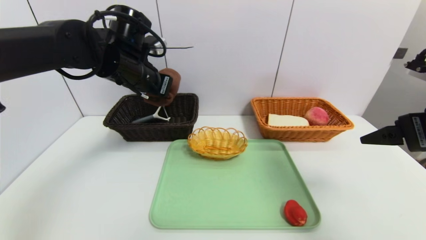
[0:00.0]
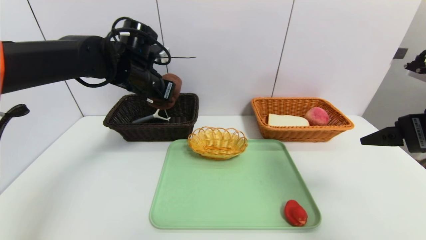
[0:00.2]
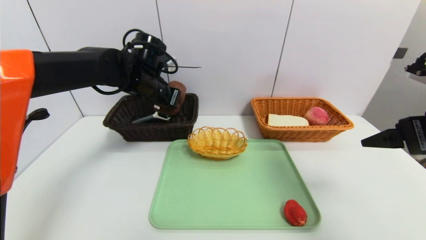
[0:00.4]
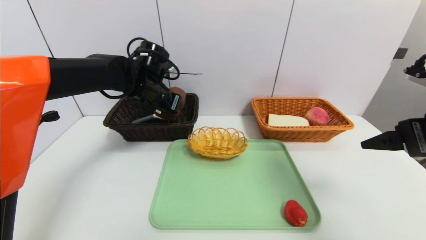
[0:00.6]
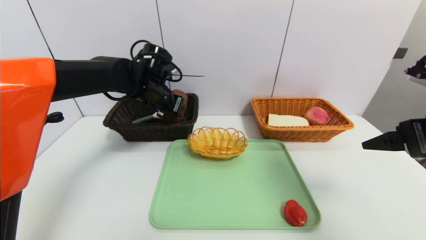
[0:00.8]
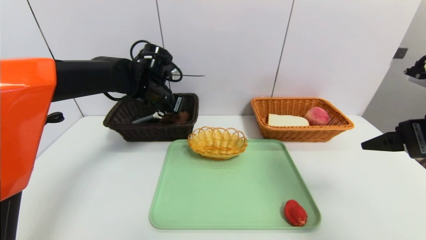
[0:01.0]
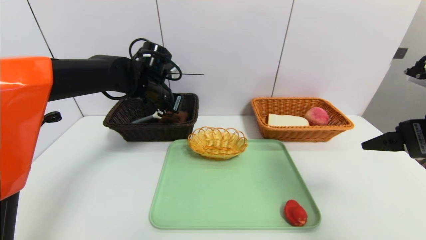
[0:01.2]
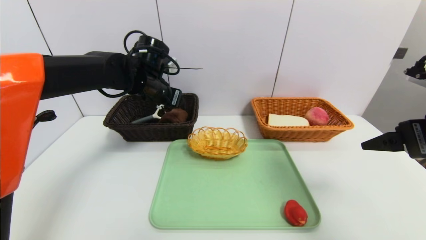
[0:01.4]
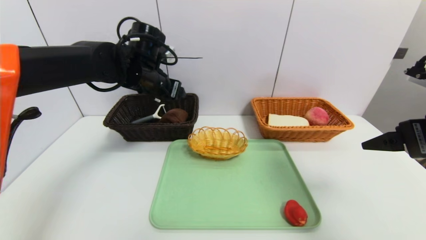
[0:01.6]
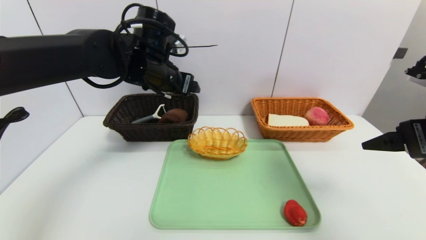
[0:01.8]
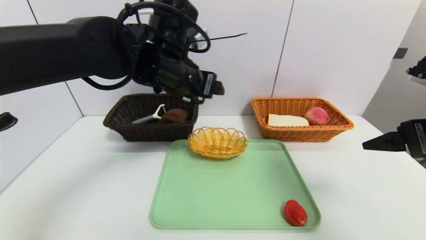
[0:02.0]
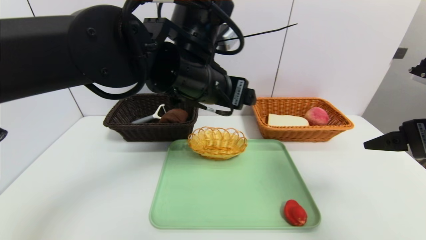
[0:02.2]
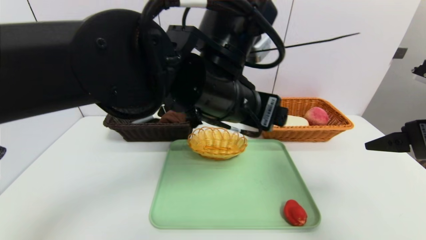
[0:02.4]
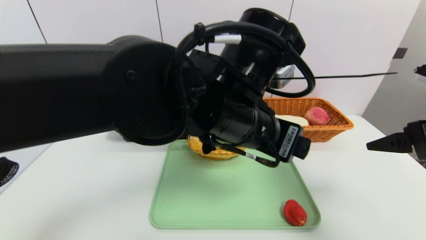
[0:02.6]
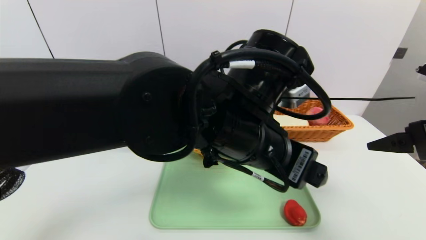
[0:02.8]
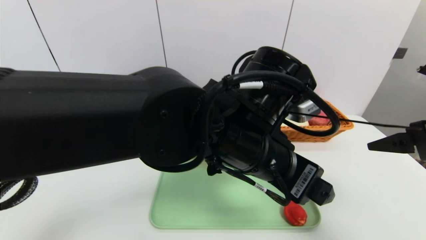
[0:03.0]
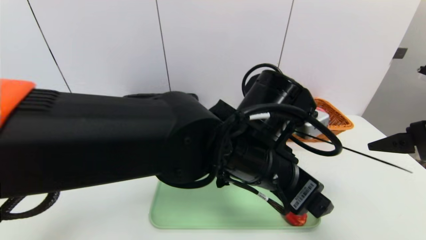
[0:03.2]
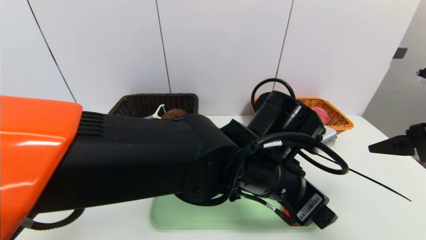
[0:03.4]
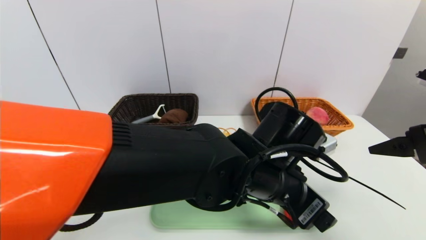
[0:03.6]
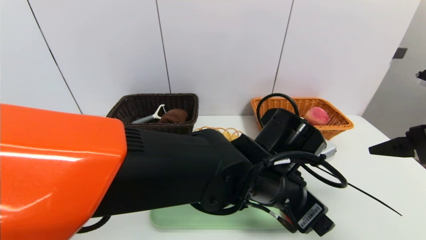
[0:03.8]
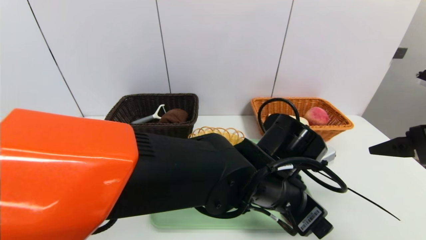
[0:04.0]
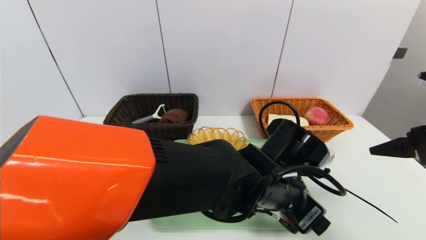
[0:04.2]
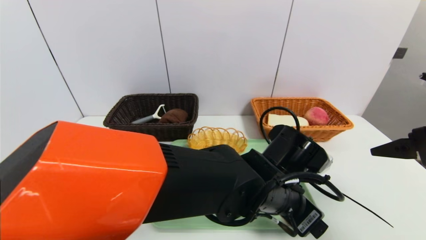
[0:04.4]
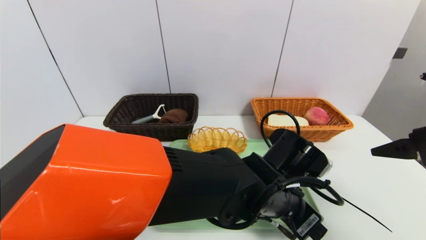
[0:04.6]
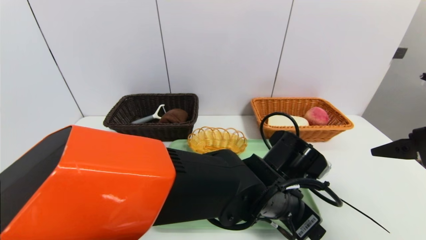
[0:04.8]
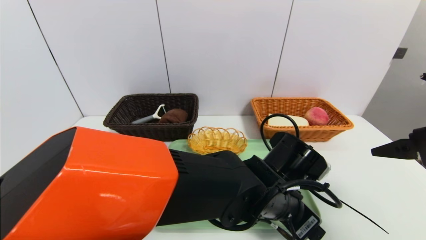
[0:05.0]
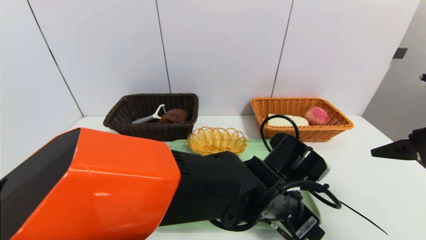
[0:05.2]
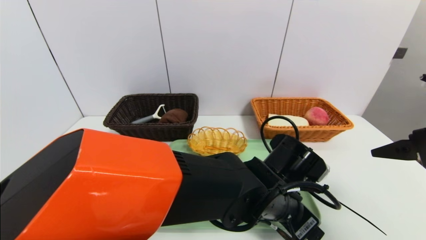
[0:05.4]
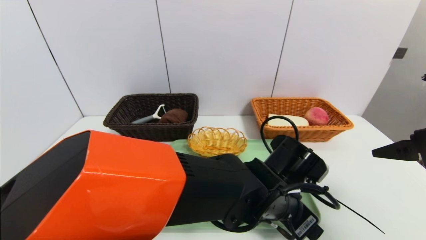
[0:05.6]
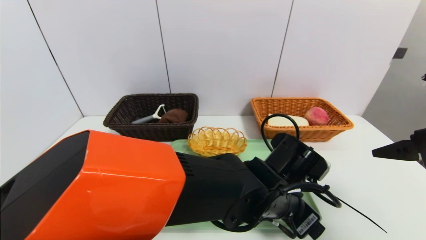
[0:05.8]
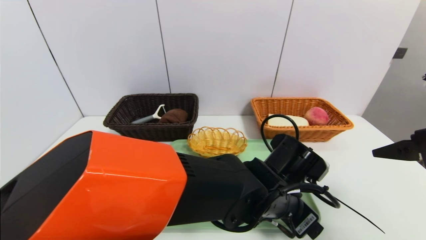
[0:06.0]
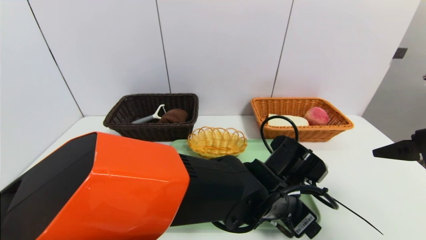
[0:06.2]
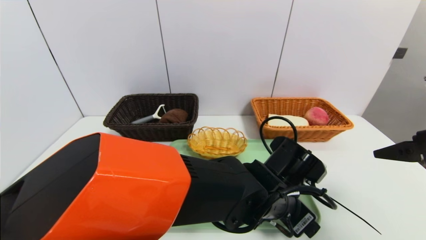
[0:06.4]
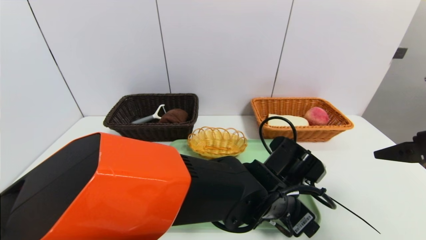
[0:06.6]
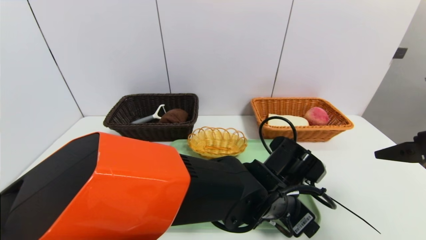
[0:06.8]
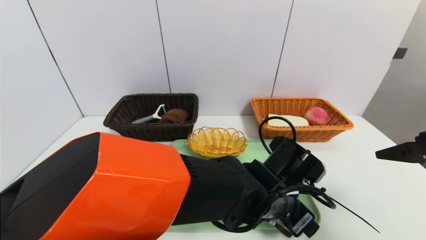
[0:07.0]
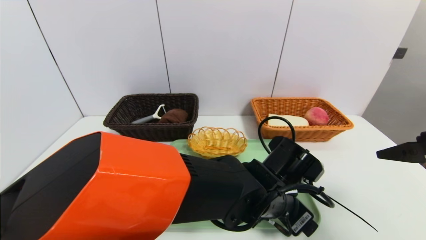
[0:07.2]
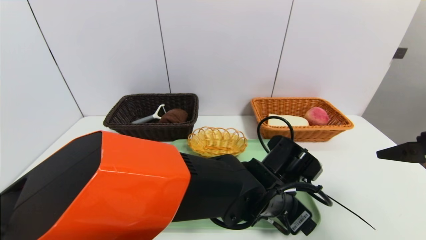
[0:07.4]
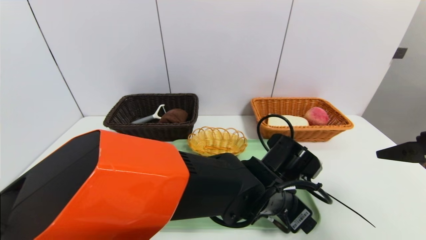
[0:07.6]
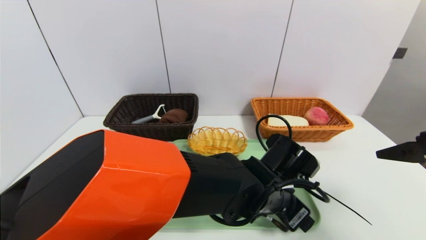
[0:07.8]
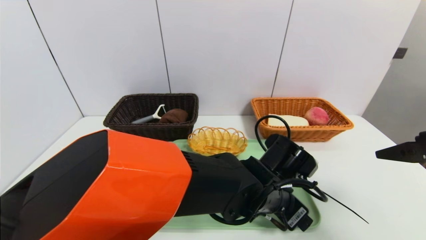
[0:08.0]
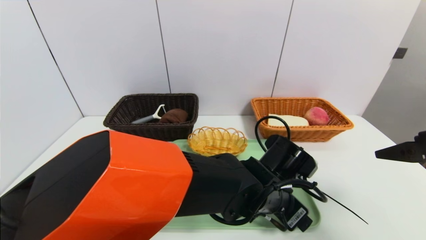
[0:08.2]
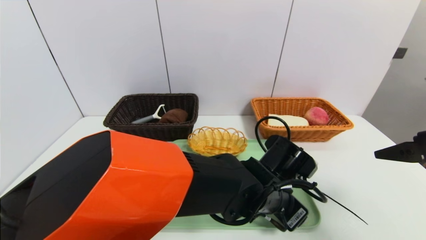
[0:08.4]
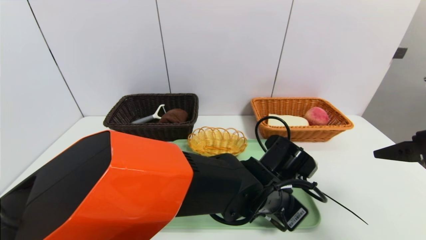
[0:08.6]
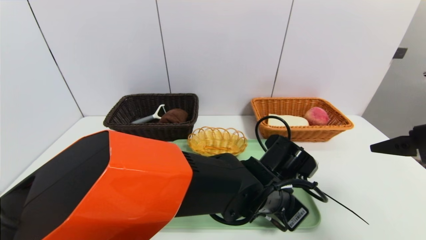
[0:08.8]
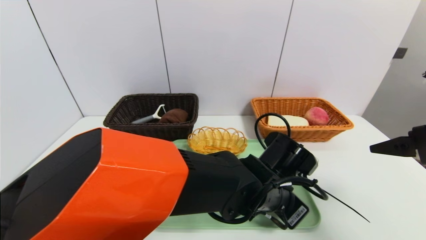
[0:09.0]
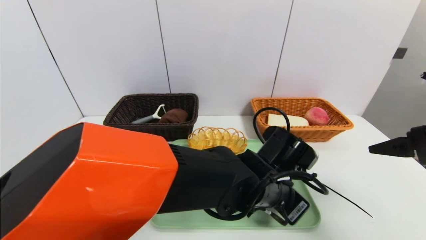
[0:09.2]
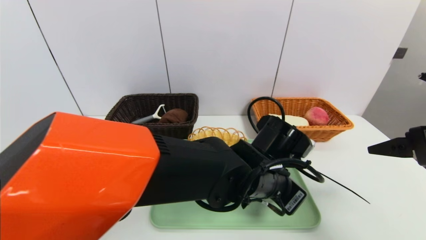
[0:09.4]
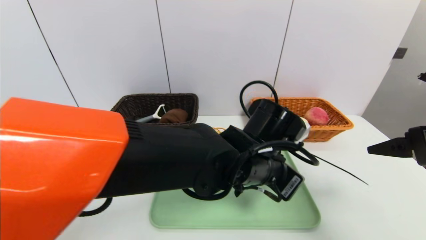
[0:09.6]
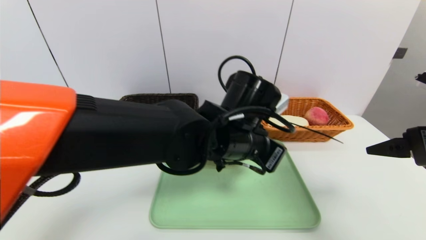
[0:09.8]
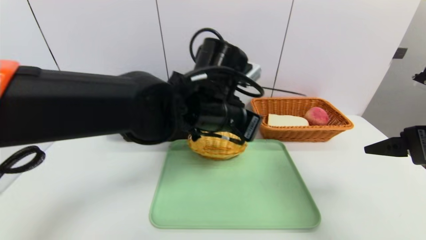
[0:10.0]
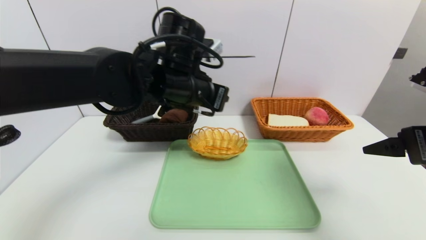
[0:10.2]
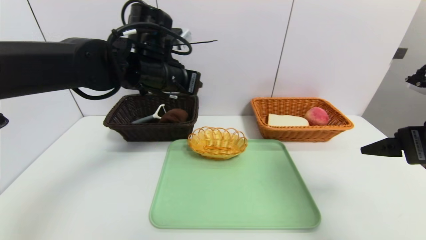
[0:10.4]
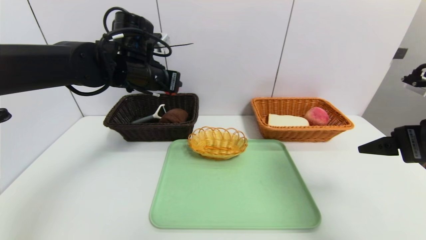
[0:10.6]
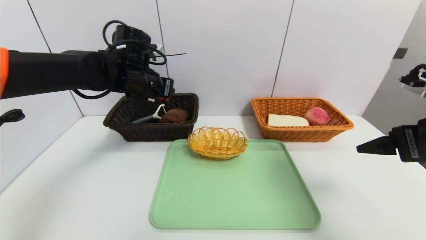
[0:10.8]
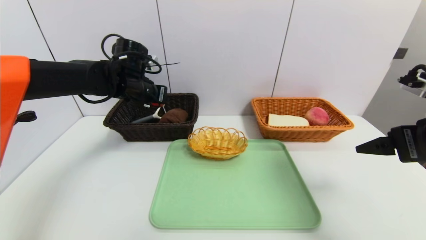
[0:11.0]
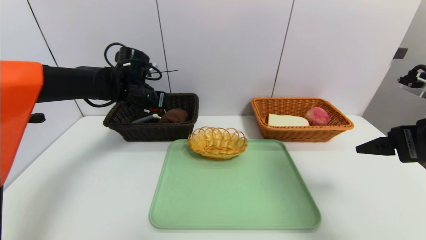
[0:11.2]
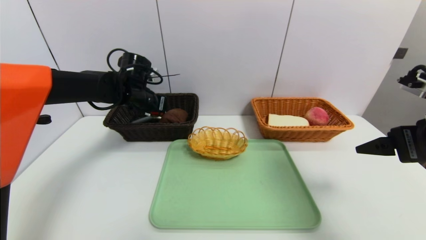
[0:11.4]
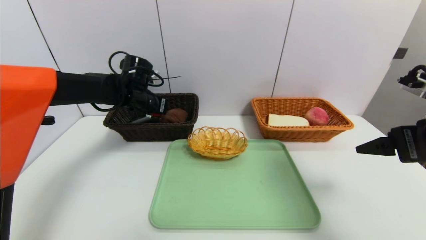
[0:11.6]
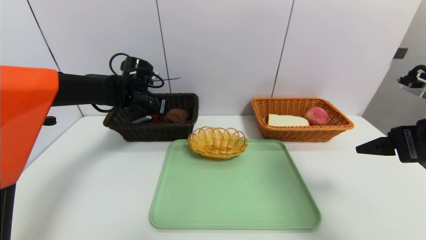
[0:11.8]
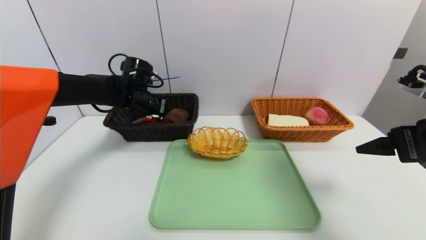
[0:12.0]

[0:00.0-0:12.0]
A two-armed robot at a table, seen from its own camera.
Task of the whole recording: place the food in the right basket with the right gripper, and place the non food items in the left basket with the left gripper.
0:00.0 to 0:01.6: The left gripper opens its fingers.
0:01.6 to 0:03.0: The left gripper heads backward and to the right, covering approximately 25 cm.
0:03.0 to 0:04.4: The left gripper goes about 10 cm downward and to the right.
0:04.4 to 0:06.0: The grippers move only a little.
0:06.0 to 0:07.6: Neither gripper changes place.
0:07.6 to 0:09.0: The left gripper closes.
0:09.0 to 0:10.4: The left gripper shifts some 30 cm to the left, upward and forward.
0:10.4 to 0:12.0: The left gripper moves downward, forward and to the left, about 15 cm, and opens.

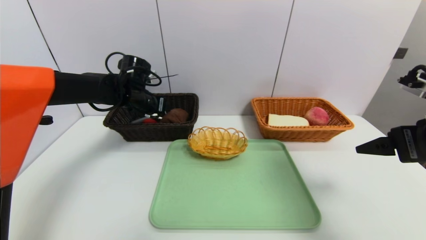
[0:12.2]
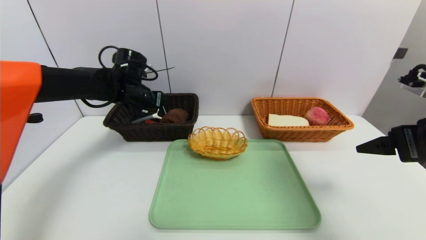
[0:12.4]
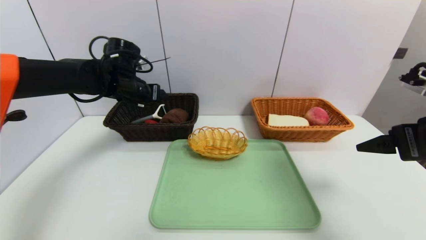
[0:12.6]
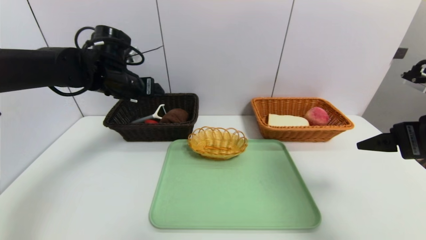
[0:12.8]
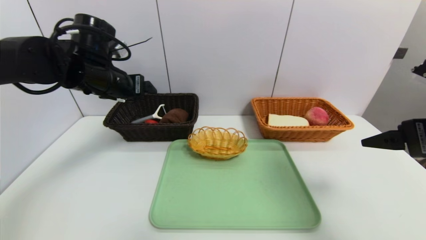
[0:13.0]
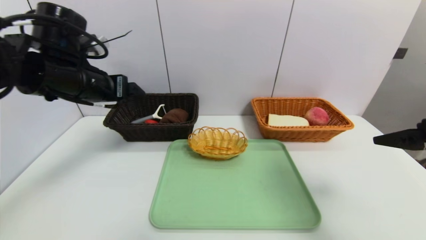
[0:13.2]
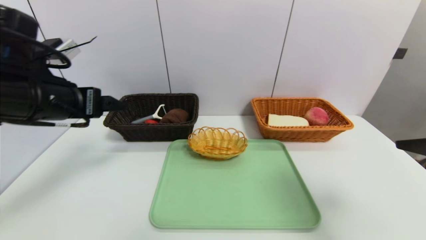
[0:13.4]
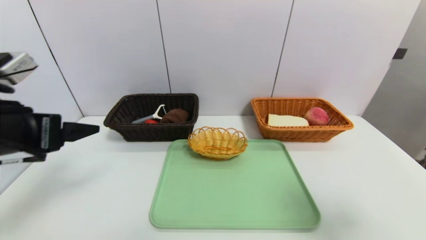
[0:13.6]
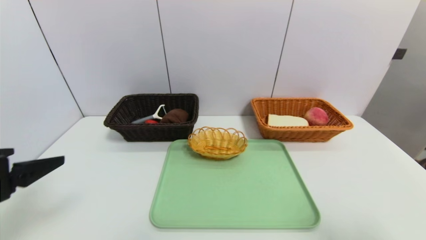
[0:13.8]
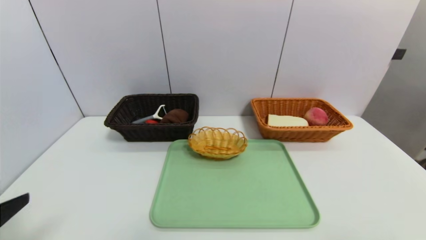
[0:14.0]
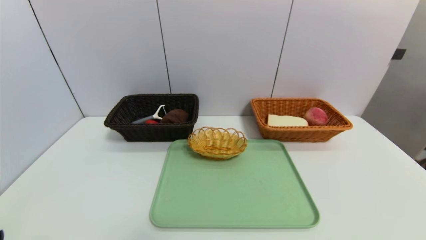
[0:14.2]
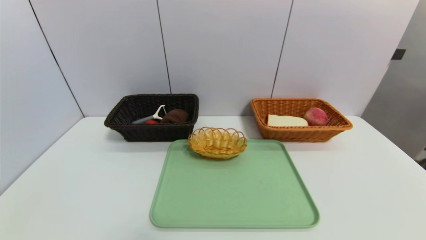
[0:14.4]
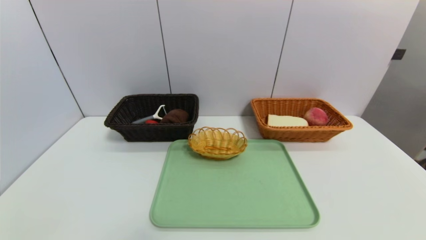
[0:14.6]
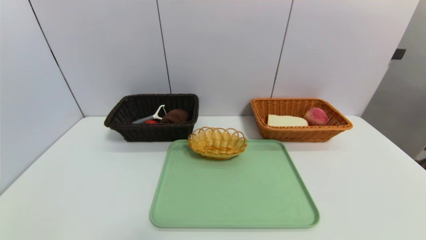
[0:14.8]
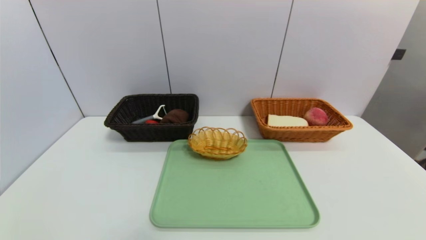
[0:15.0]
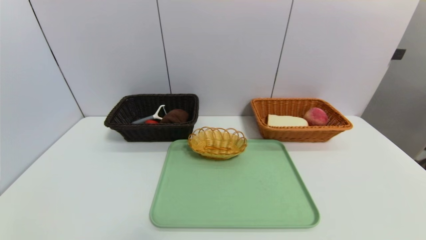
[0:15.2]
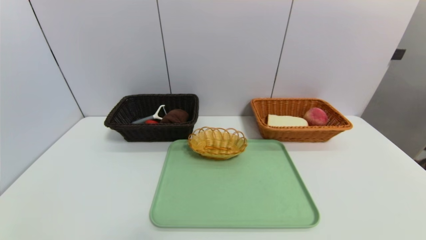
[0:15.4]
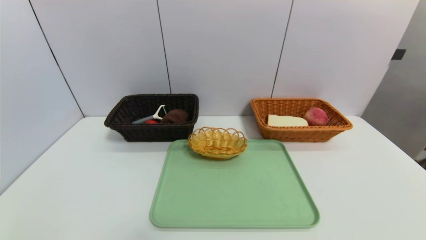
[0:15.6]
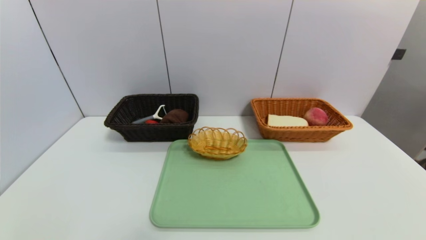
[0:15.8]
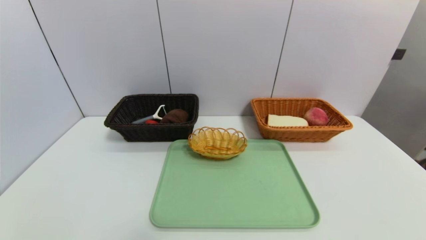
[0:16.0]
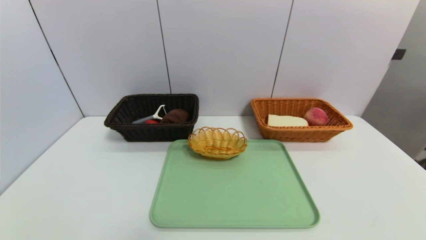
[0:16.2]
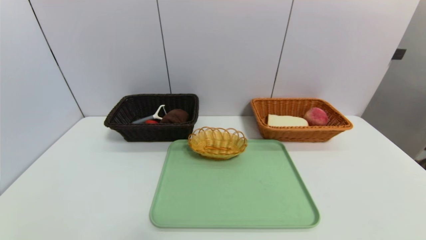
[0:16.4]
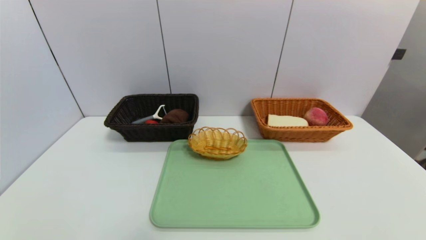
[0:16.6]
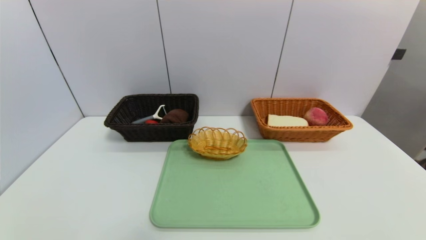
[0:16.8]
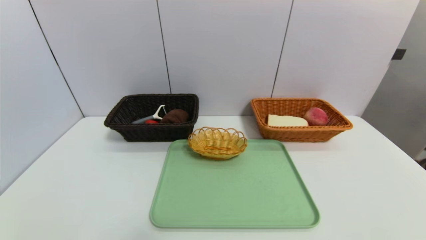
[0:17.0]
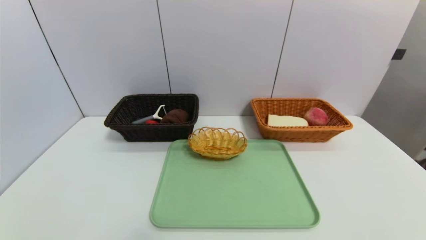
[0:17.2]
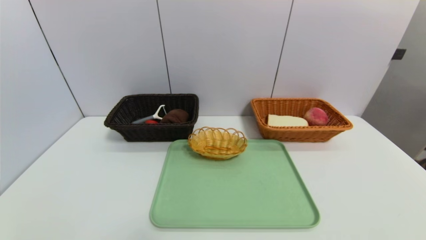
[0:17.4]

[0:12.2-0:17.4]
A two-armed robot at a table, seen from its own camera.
Task of the whole recording: place the food in the right basket with the right gripper, and place the non food items in the left basket with the left gripper.
0:12.2 to 0:14.0: The right gripper is displaced backward by about 20 cm. Meanwhile the left gripper goes about 40 cm backward.
0:14.0 to 0:15.6: The left gripper heads downward and backward, covering about 15 cm.
